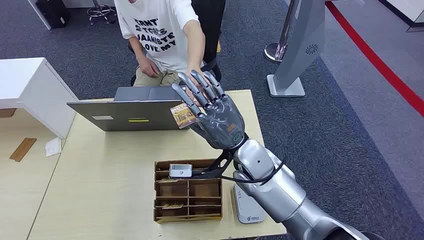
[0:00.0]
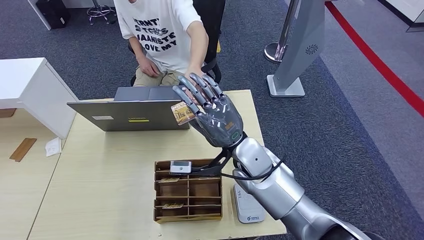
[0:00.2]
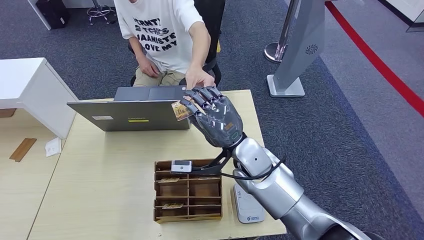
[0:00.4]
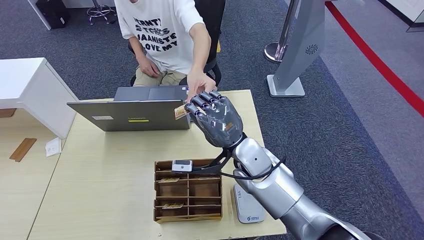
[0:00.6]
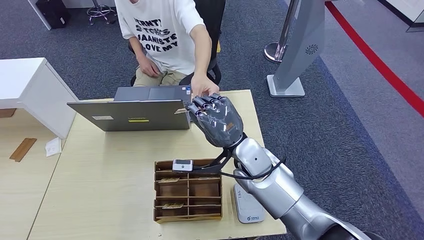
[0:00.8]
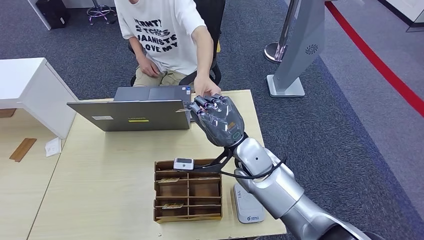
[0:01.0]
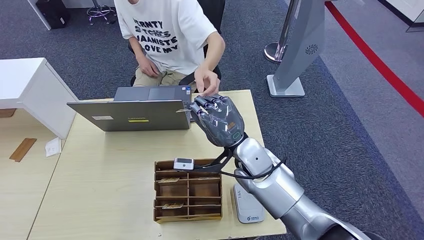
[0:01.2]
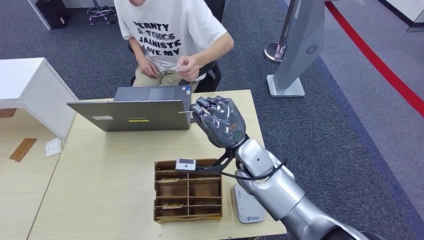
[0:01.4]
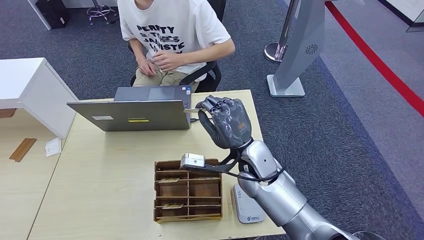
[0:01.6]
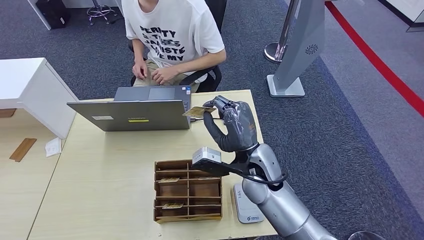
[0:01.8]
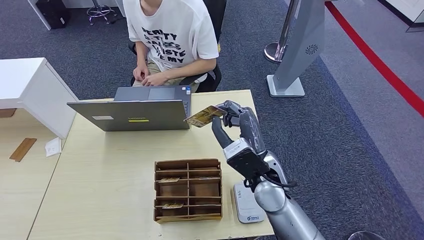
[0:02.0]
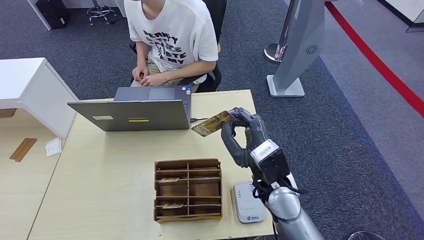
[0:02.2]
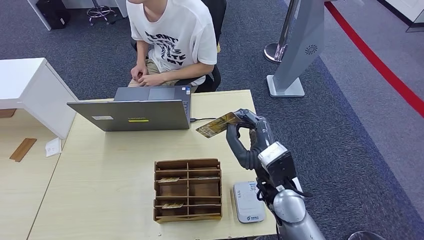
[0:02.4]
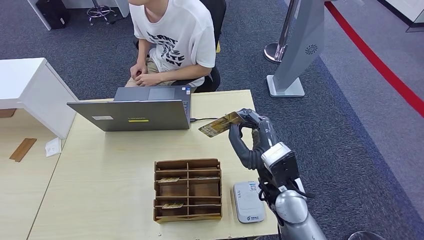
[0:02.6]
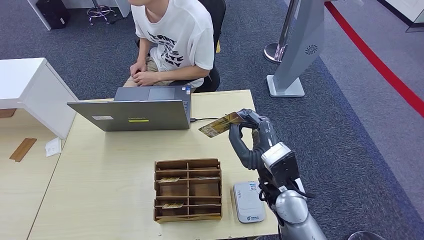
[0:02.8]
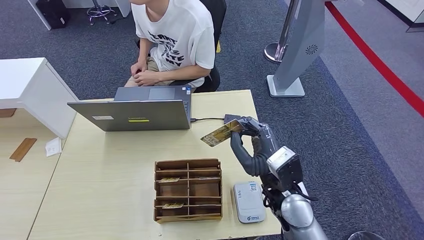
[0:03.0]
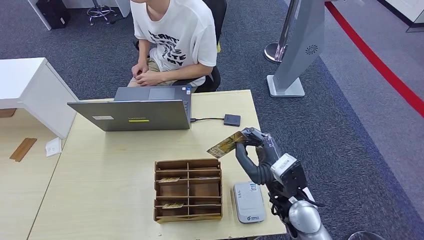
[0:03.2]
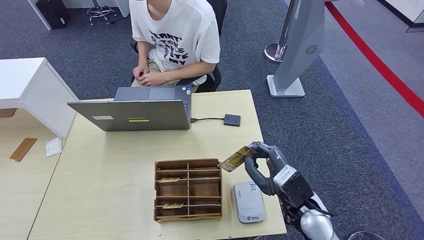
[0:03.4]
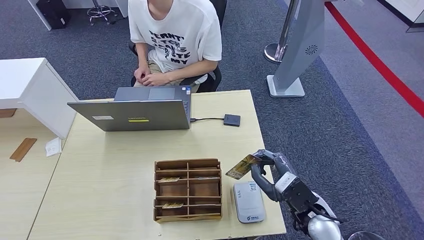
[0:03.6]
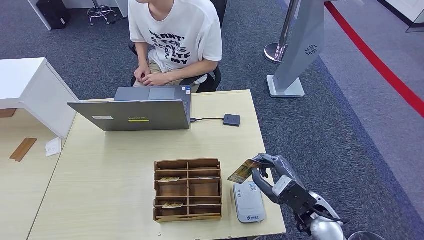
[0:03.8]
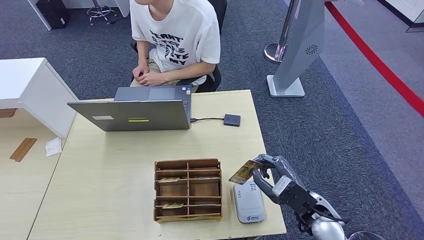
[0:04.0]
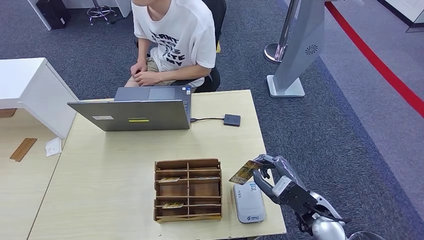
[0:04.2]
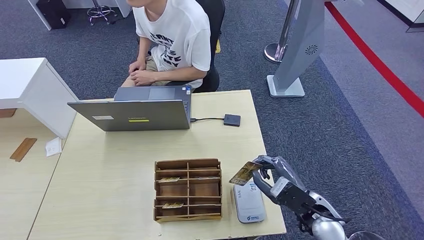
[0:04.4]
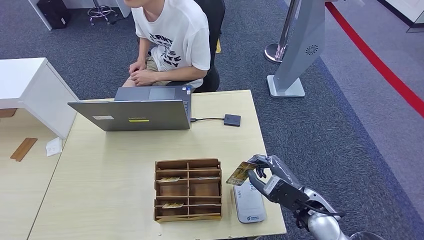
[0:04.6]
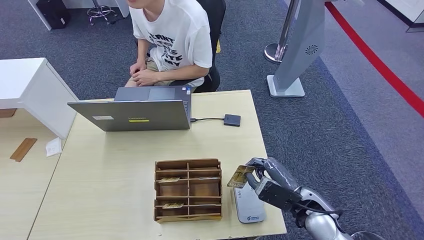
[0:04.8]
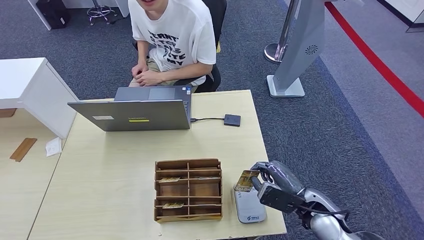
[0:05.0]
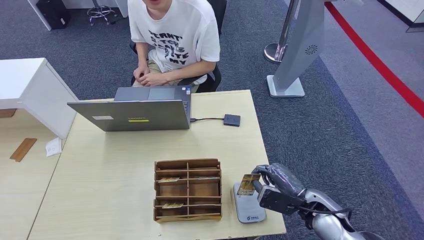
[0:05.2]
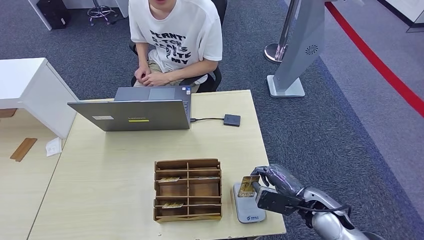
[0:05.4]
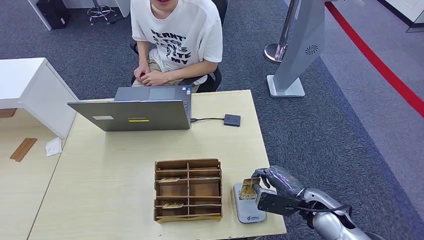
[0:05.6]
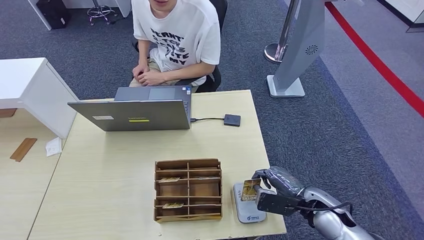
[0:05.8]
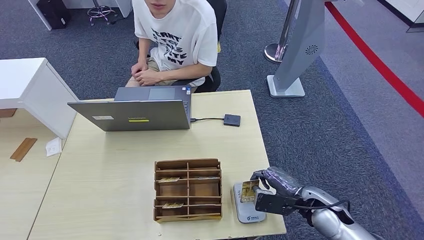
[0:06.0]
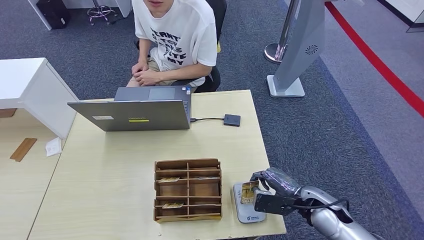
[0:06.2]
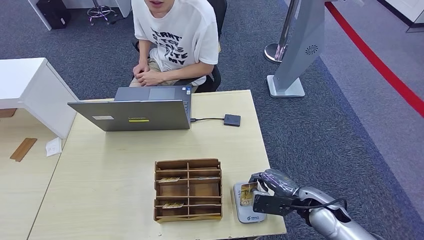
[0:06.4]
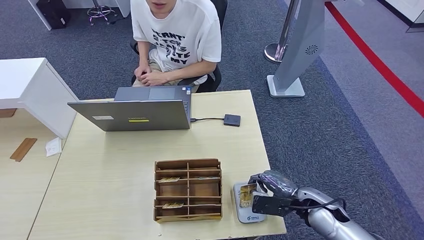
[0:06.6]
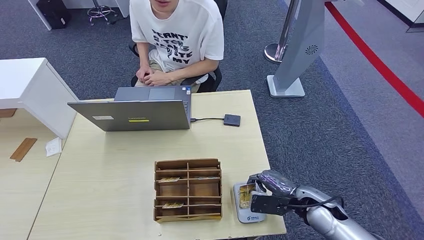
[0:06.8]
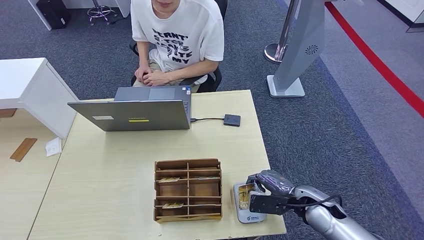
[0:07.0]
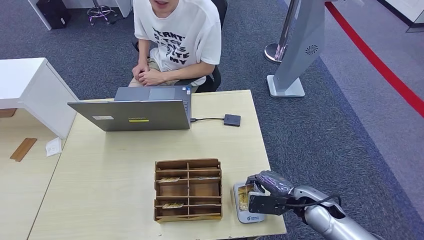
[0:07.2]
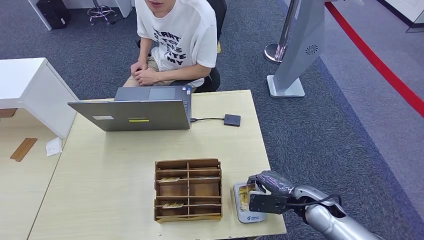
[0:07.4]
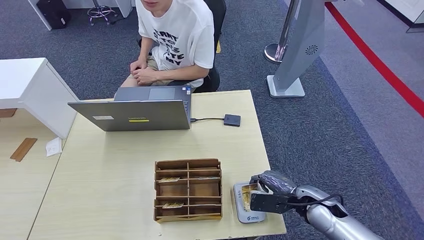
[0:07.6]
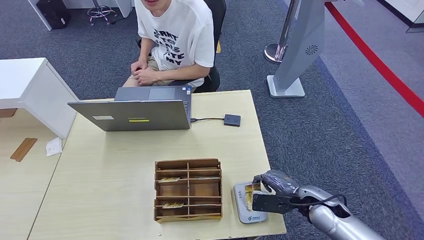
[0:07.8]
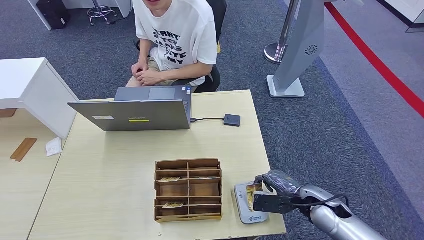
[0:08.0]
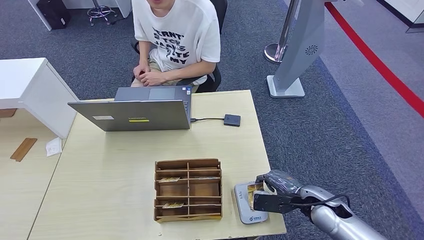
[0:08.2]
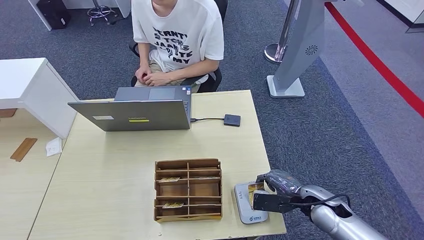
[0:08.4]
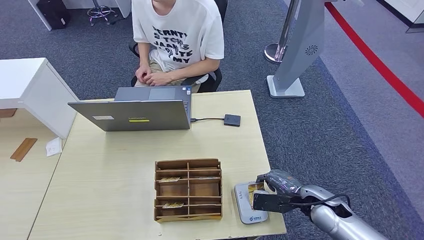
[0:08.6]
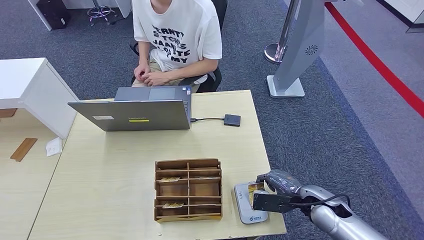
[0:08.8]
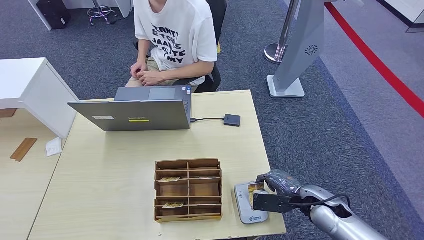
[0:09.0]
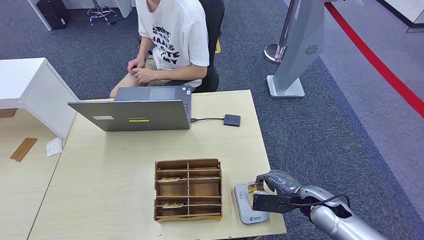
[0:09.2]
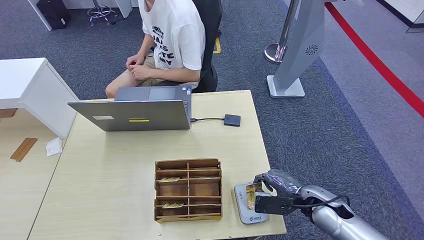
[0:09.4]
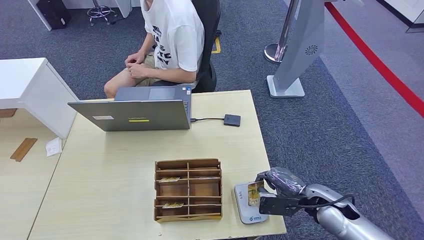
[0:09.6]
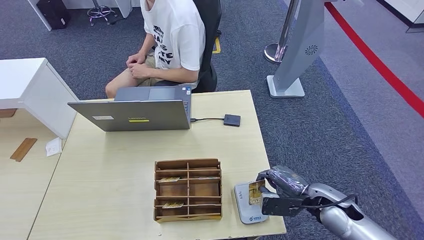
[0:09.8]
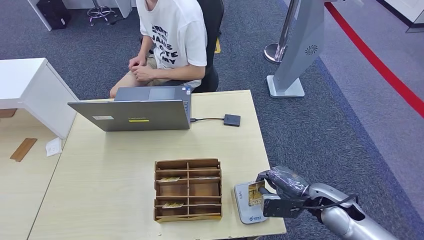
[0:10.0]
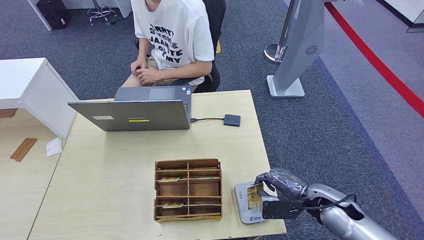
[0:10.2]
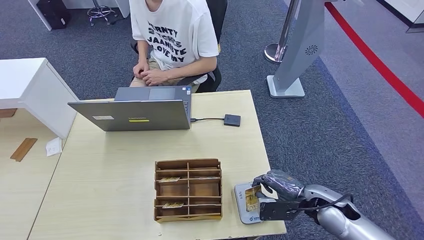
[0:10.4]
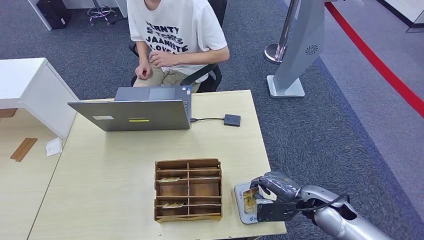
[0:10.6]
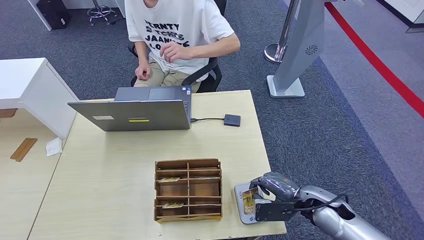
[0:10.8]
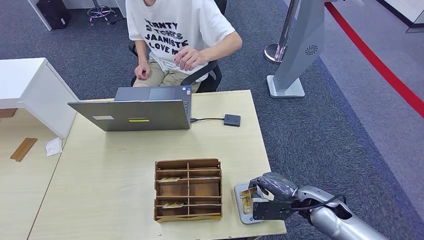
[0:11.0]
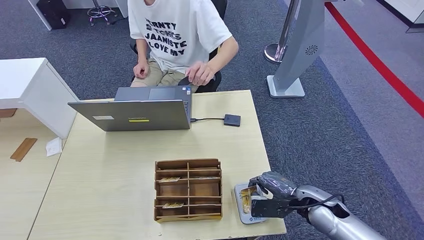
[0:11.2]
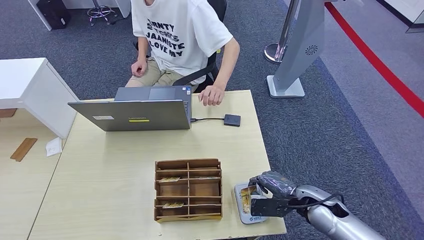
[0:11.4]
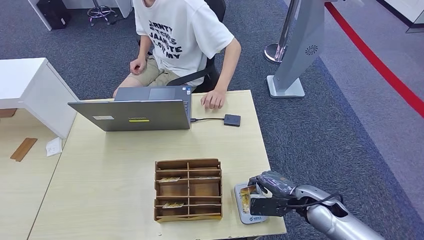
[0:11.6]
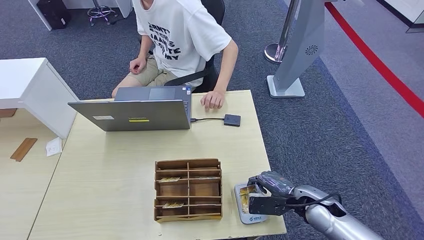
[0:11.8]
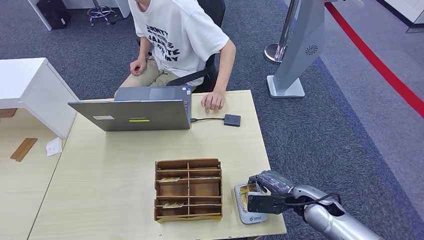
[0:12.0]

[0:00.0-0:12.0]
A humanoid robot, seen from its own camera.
Step, 0:00.0 to 0:02.0: Take the ID card from the person's hand.
Step, 0:02.2 to 0:10.2: Place the ID card on the card reader.
0:01.6 to 0:03.0: The right hand moves backward and to the right, approximately 10 cm.
0:03.0 to 0:04.4: The right hand shifts some 10 cm to the right and downward.
0:06.0 to 0:12.0: The hands make only small movements.

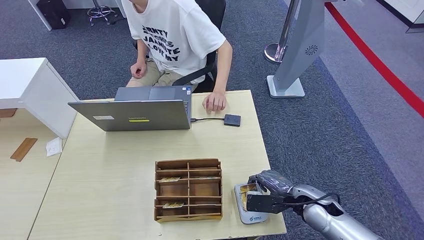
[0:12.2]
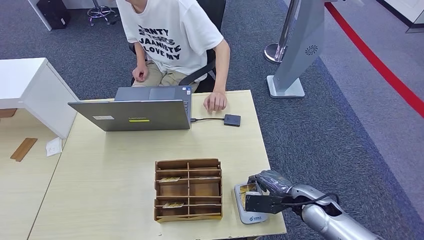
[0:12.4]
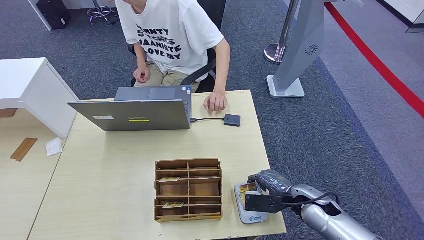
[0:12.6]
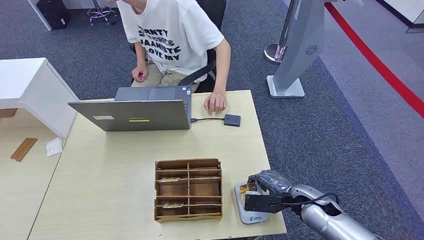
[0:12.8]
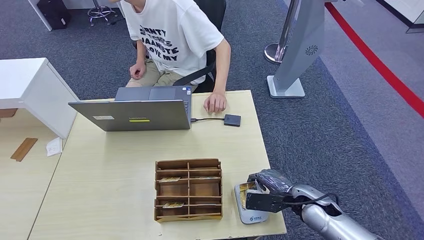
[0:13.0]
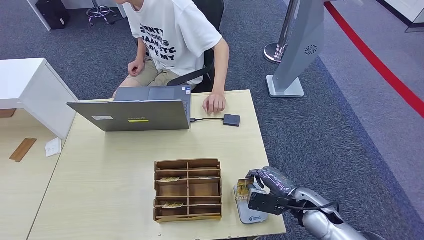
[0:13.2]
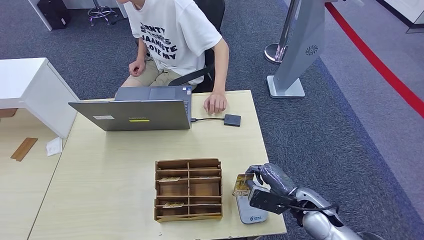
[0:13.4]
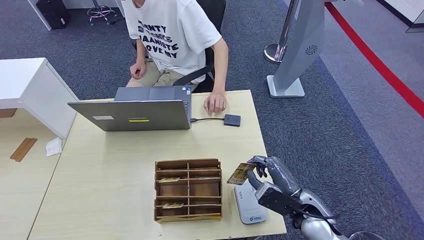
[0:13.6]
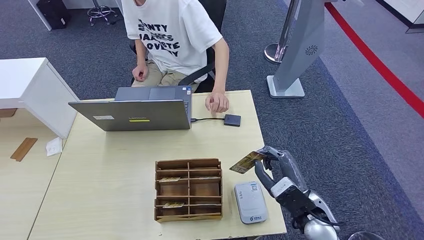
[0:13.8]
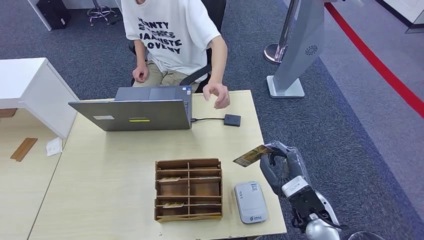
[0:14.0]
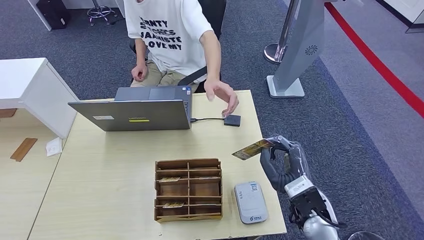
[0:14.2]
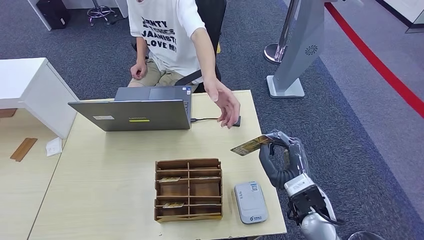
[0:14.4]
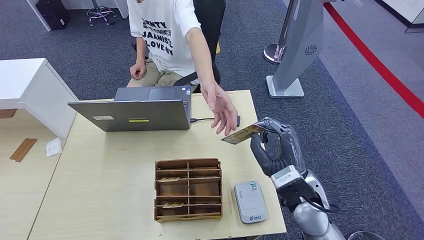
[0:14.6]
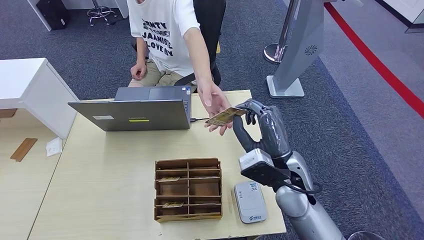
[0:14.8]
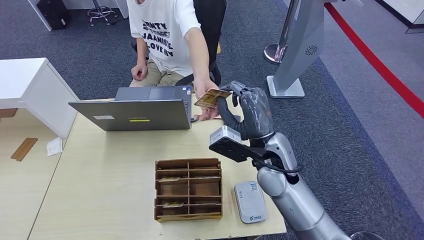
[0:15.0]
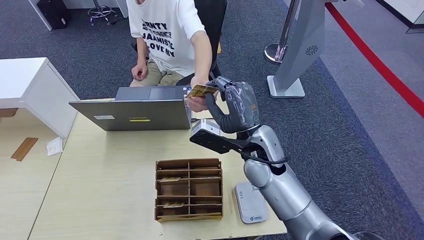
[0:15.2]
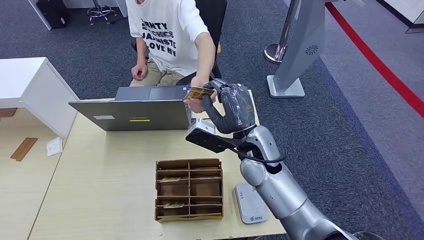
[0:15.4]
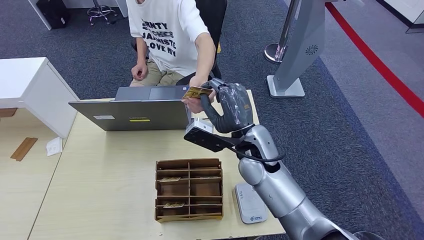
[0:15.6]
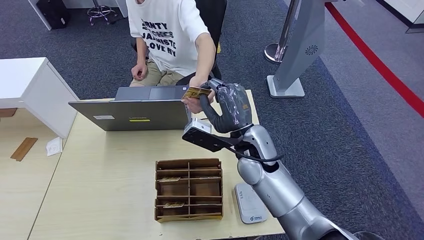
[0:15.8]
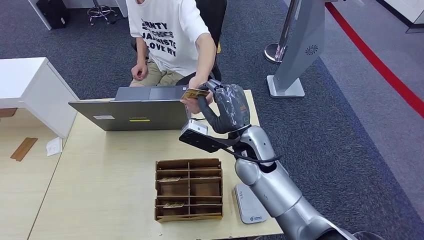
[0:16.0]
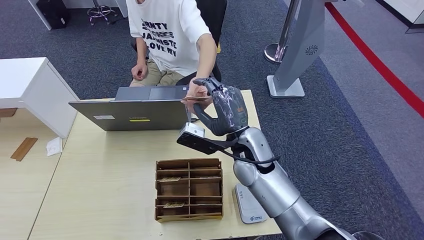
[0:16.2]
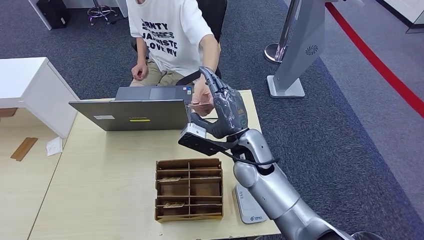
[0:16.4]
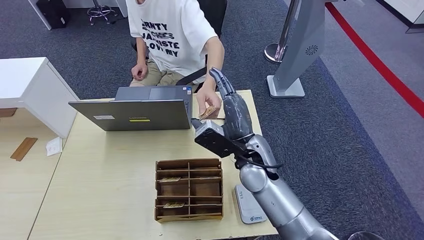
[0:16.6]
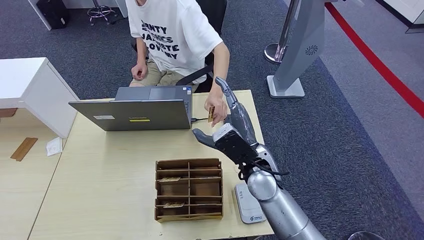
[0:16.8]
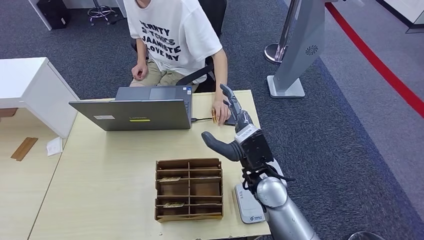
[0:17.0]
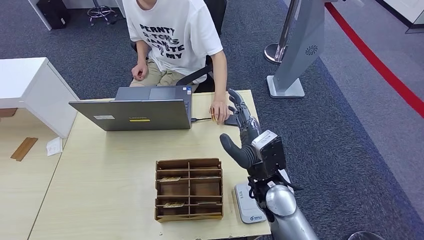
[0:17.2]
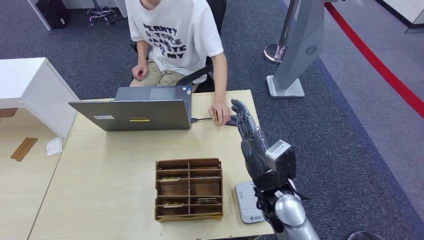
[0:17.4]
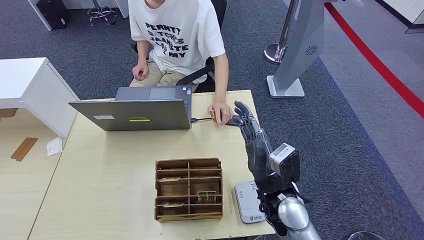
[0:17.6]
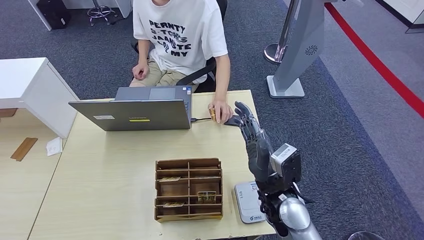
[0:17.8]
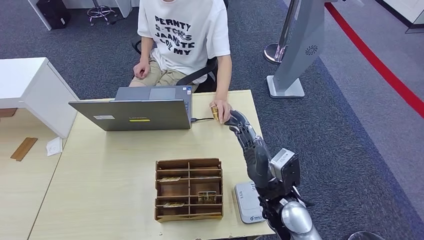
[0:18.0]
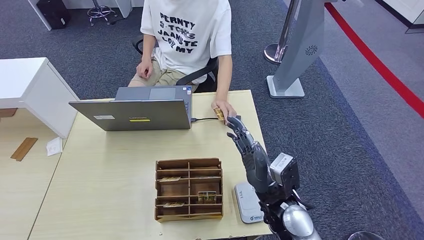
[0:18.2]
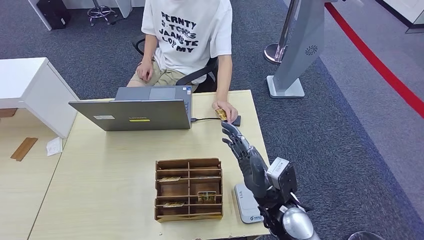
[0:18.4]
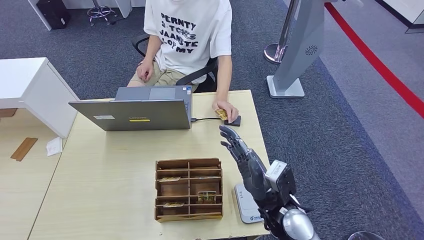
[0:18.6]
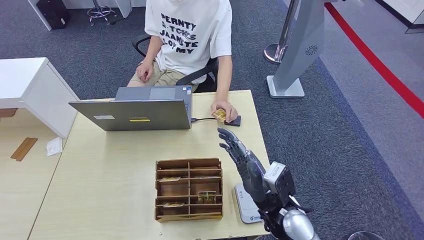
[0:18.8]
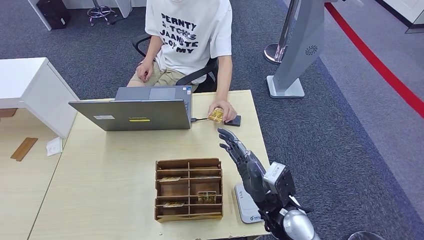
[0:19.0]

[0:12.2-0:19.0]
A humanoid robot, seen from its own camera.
Step, 0:12.2 to 0:17.4: Hand the ID card to the person.
0:12.2 to 0:13.6: The right hand ends up some 5 cm from where it was.
0:13.6 to 0:15.0: The right hand moves upward, to the left and forward, roughly 20 cm.
0:15.0 to 0:16.2: The right hand changes place by some 5 cm.
0:16.2 to 0:17.6: The right hand goes approximately 10 cm backward and to the right.
0:17.6 to 0:19.0: There are only small adjustments of the hands.
